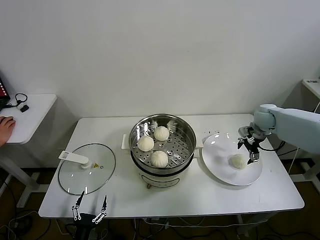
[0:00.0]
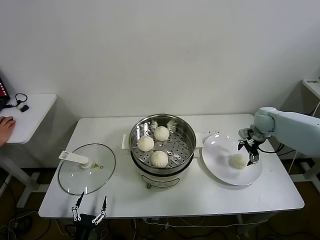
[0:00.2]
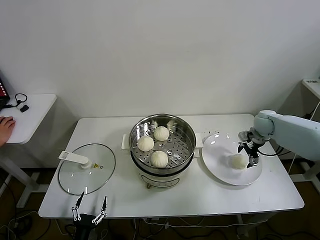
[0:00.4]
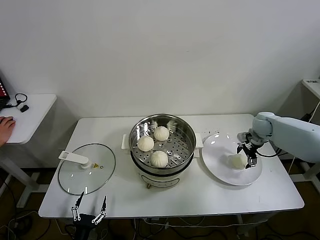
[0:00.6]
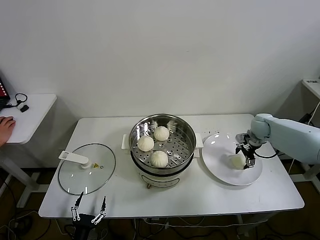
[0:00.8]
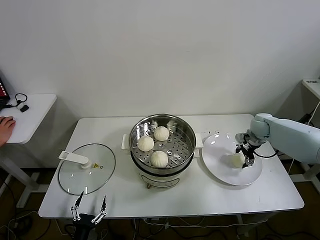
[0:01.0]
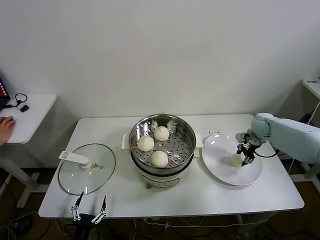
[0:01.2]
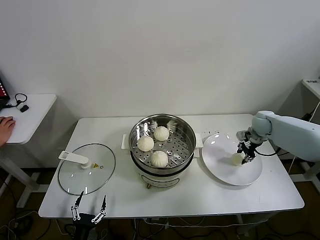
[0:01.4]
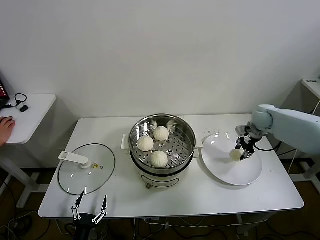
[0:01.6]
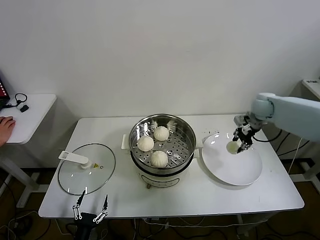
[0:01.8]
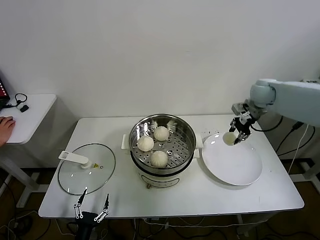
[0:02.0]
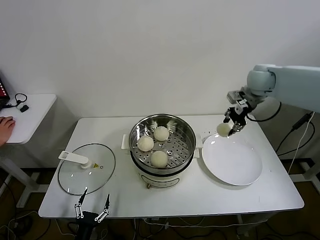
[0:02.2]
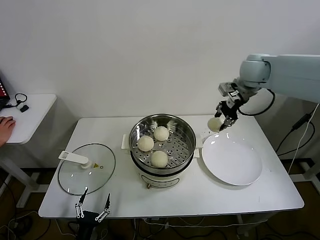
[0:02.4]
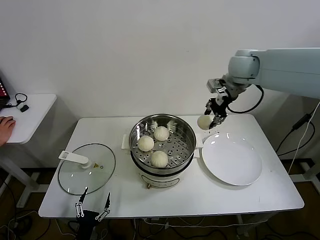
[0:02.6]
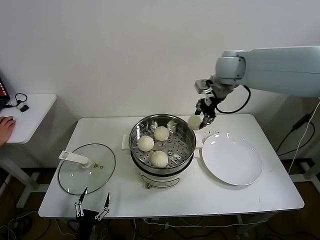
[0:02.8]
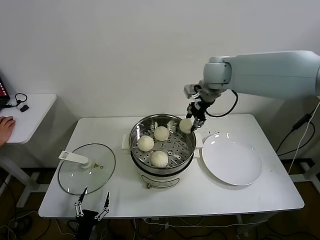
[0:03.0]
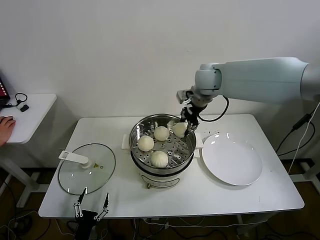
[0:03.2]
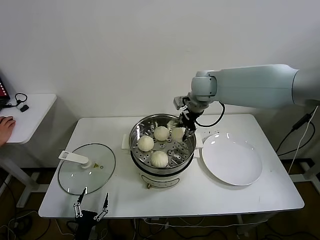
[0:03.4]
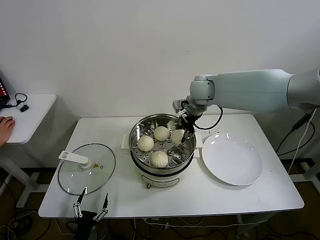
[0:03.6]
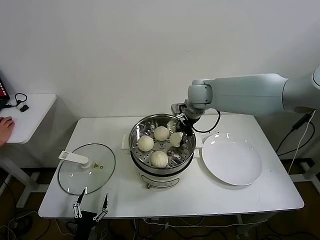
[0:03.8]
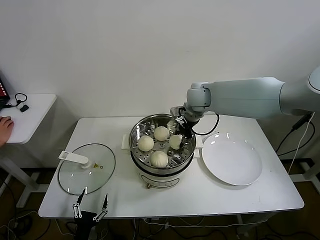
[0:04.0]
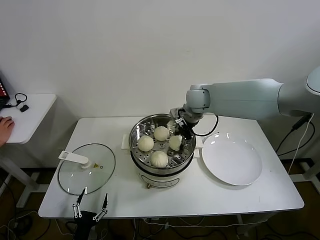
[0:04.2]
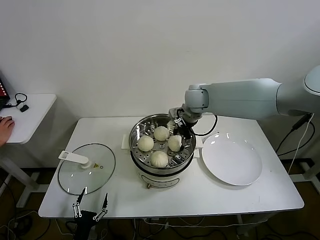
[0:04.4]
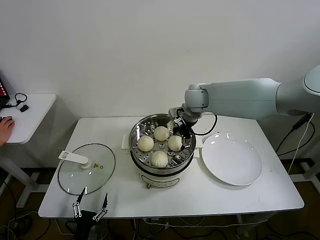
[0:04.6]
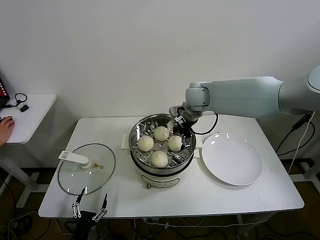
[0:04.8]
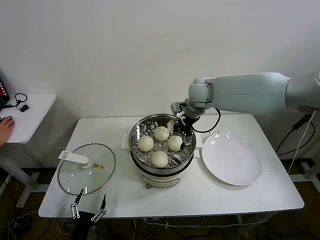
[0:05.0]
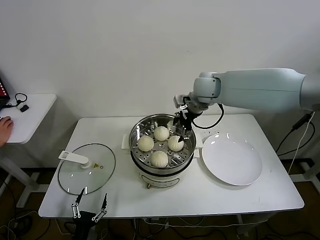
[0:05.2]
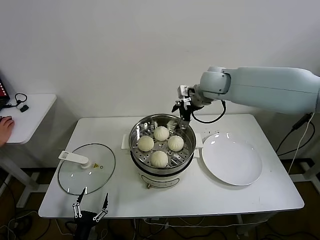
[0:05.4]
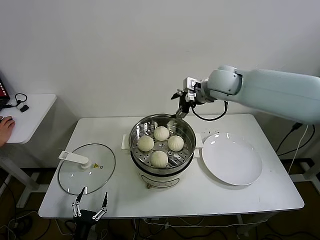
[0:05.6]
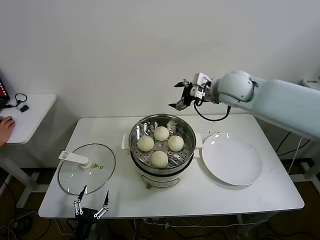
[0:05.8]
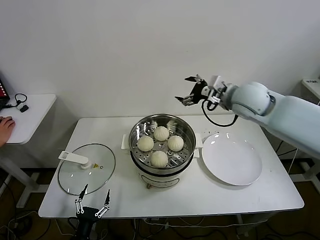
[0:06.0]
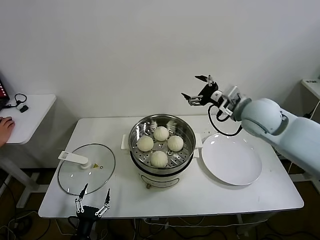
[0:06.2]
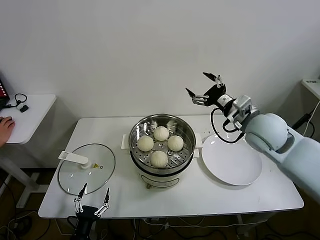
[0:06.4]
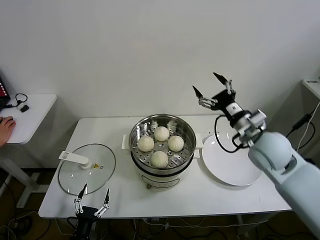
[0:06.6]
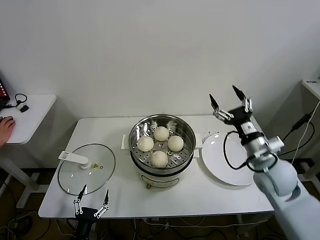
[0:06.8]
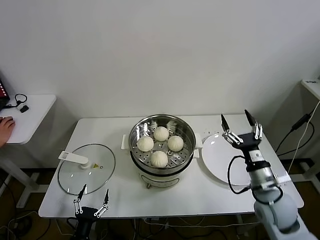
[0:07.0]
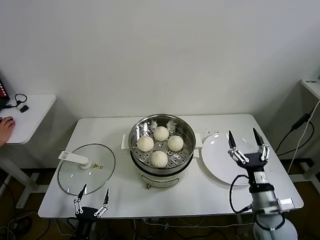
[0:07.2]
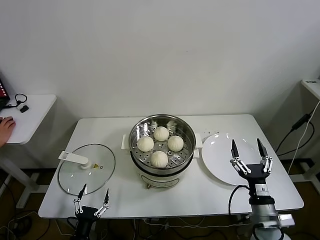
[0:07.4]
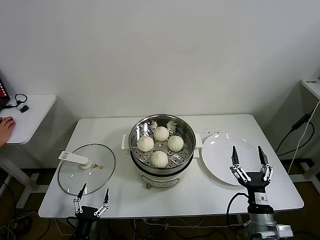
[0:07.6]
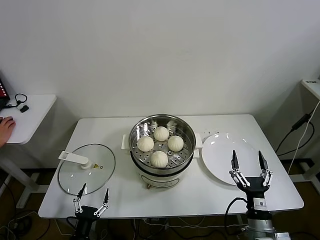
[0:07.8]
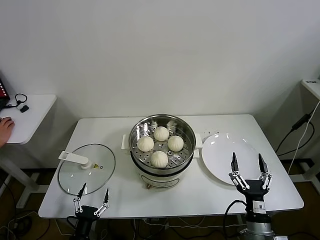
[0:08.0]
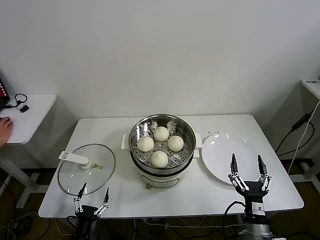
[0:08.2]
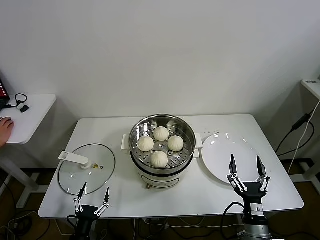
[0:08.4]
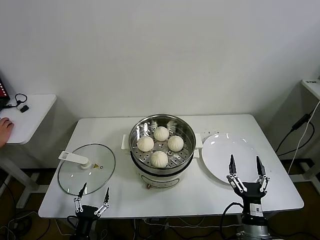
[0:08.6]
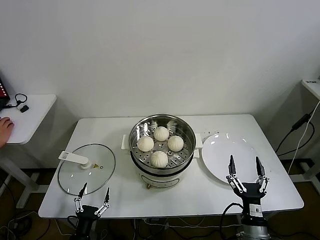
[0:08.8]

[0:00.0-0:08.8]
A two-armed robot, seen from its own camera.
Task of the whole recording: take steamed baozi put them in steamer.
Step, 1.4 to 4.6 s: Place the baozi on the steamer with right gripper.
0.0 to 1.4 s: The right gripper closes its fingers.
1.4 to 3.0 s: The right gripper heads upward and to the left, covering some 35 cm.
3.0 to 4.4 s: The right gripper heads downward and to the left, covering roughly 10 cm, and opens its fingers.
4.4 to 5.8 s: The right gripper heads to the right and upward, covering about 10 cm.
5.8 to 7.4 s: The right gripper moves backward and downward, approximately 40 cm.
7.4 to 8.8 s: The right gripper is displaced backward by roughly 5 cm.

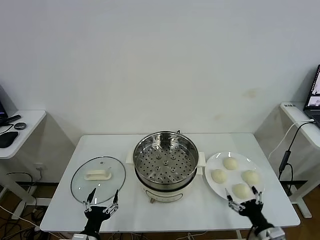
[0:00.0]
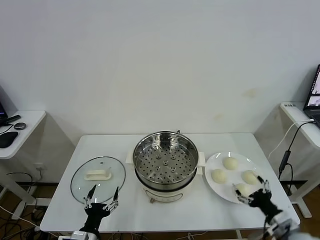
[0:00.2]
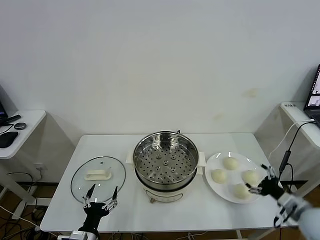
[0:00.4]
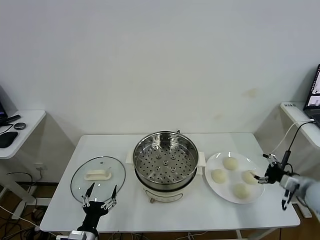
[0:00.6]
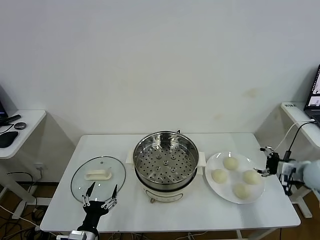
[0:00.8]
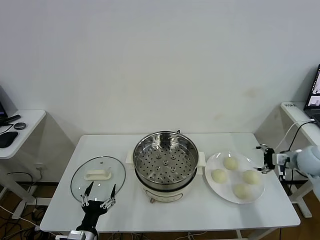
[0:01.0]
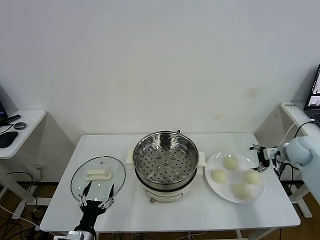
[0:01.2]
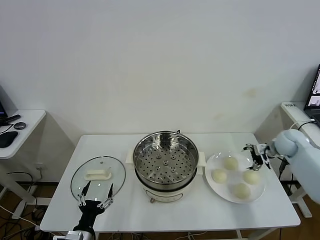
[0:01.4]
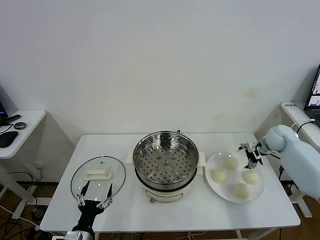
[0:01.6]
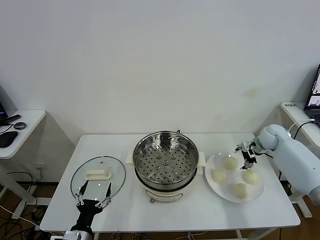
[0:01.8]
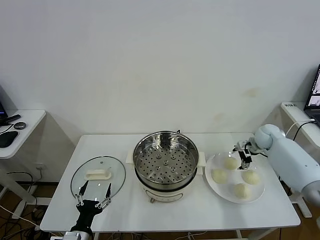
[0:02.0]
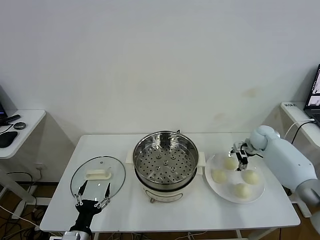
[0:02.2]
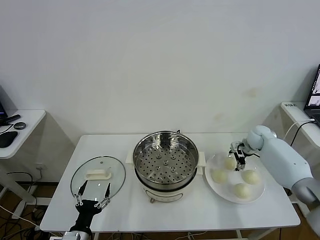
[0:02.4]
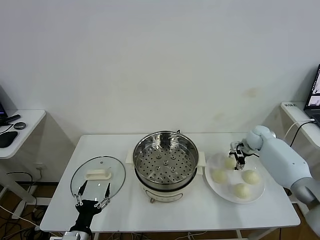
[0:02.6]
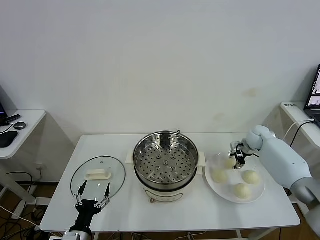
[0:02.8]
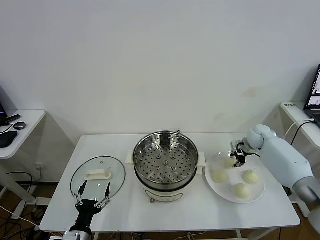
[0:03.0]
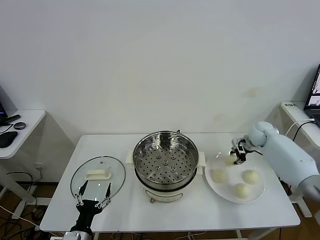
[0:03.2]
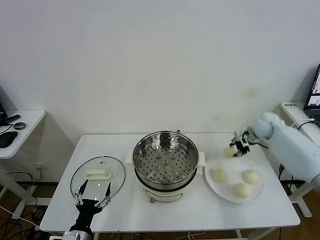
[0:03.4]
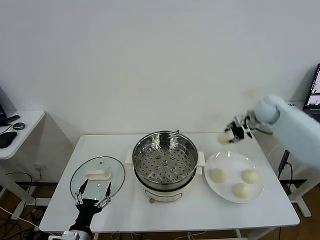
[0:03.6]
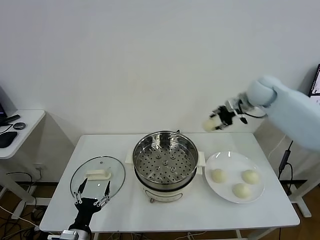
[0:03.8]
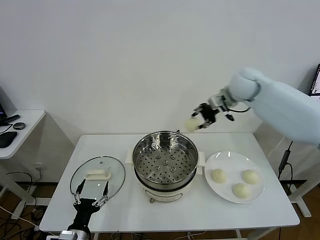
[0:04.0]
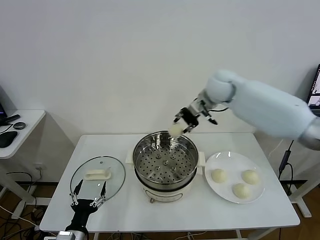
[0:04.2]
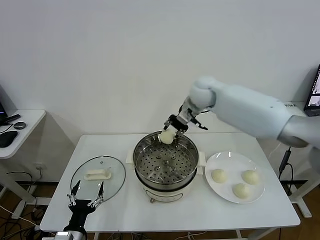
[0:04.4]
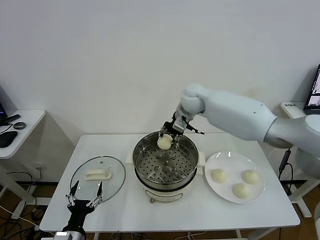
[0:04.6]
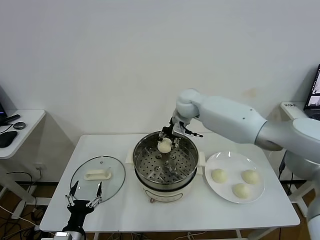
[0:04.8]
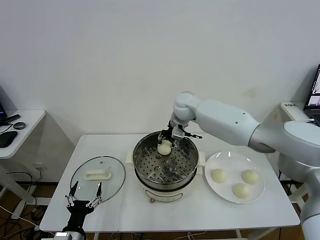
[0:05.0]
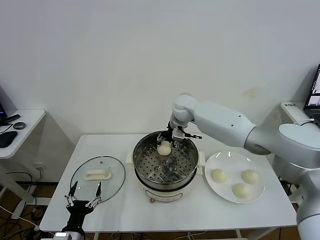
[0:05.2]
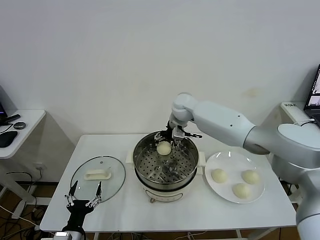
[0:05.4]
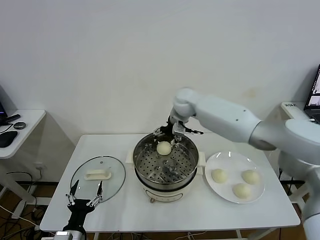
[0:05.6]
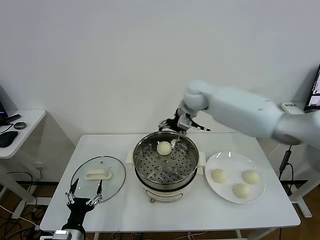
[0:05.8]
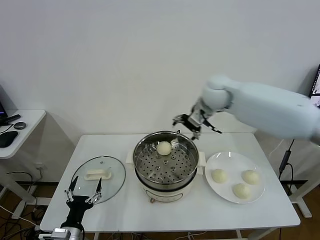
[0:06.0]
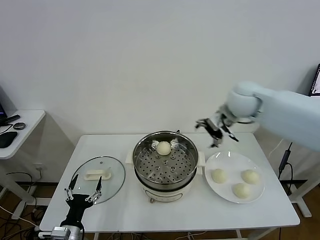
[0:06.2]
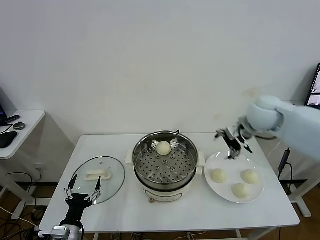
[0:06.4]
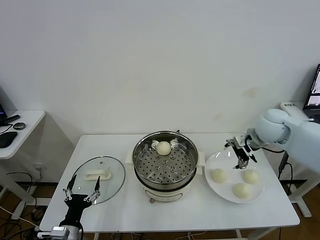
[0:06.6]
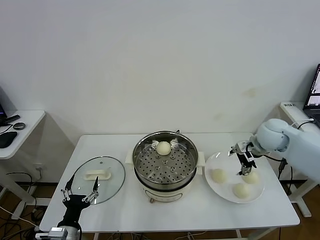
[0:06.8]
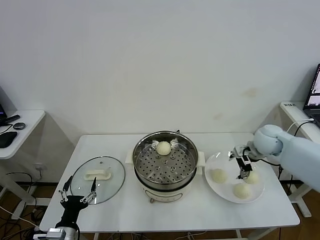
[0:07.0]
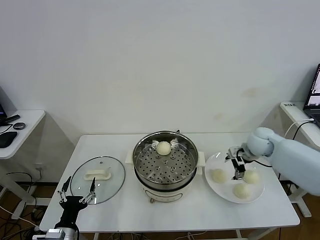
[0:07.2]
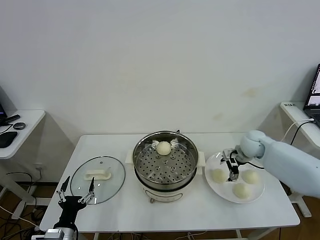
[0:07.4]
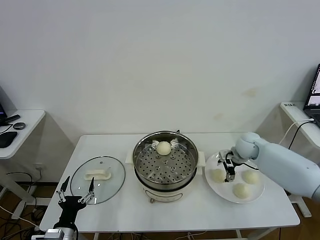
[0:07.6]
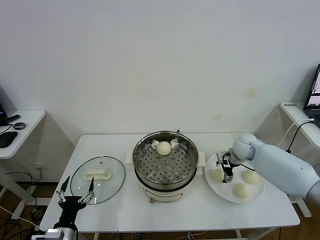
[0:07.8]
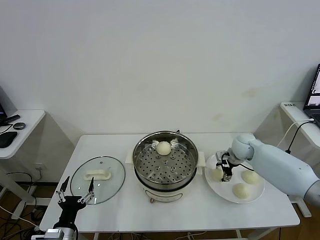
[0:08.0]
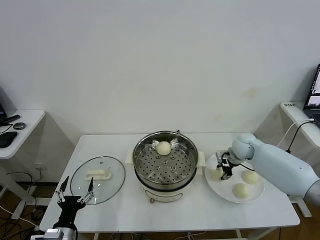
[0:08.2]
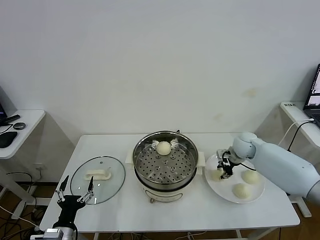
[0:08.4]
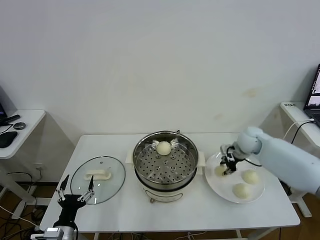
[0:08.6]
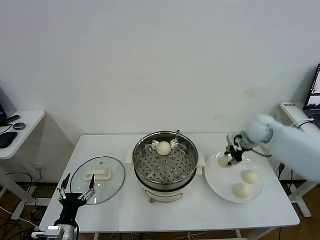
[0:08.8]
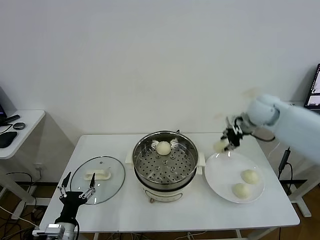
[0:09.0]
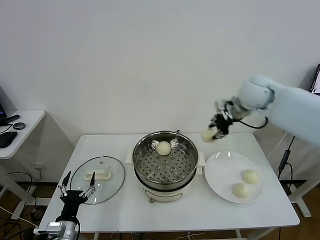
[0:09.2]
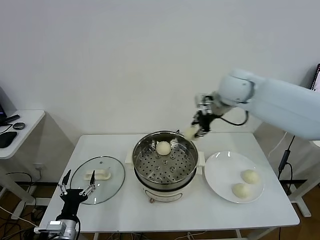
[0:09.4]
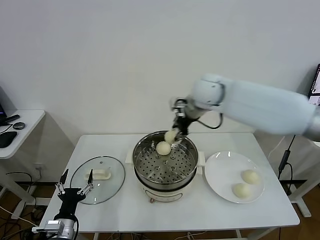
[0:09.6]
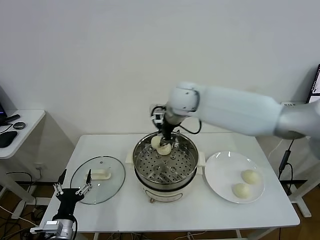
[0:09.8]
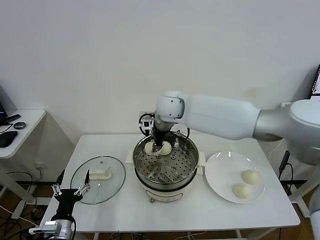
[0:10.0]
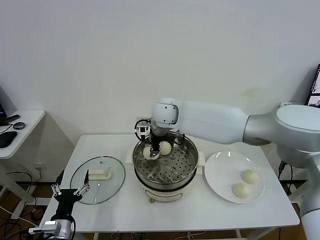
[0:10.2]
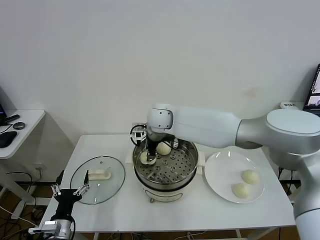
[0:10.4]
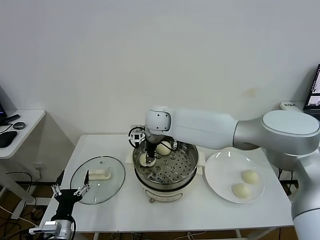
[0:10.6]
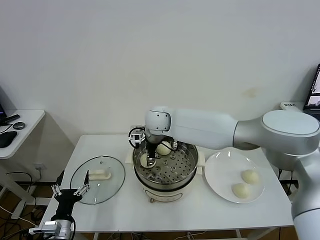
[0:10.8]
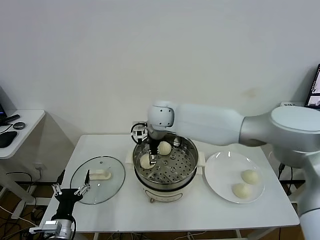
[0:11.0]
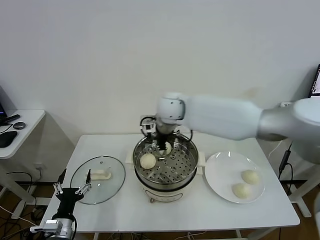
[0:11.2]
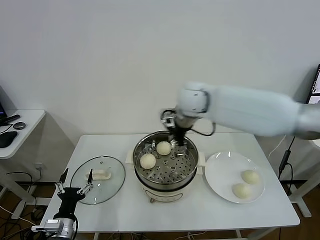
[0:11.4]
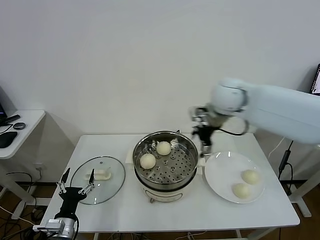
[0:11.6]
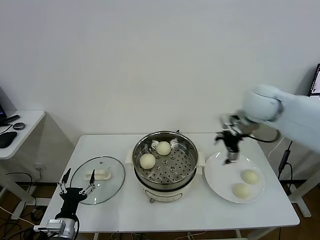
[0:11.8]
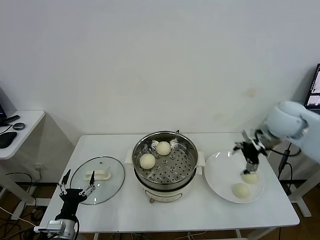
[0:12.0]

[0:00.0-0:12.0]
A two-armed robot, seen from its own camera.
Task of the whole recording: take steamed baozi put them in steamer.
Step, 0.0 to 2.8 s: Grasp the baozi in the plate with right gripper.
Step, 3.0 to 5.4 s: Place the baozi on the steamer with right gripper.
Step, 5.6 to 8.2 s: Grasp the baozi in the plate with right gripper.
Step, 8.4 to 11.0 s: Place the baozi on the steamer with right gripper.
1.6 to 3.0 s: The right gripper moves approximately 5 cm, and closes its fingers.
3.0 to 4.4 s: The right gripper heads to the left and upward, covering roughly 35 cm.
4.4 to 6.0 s: The right gripper reaches about 5 cm downward, then returns, and opens up.
6.0 to 7.6 s: The right gripper heads downward and to the right, covering approximately 25 cm.
7.6 to 9.0 s: The right gripper heads upward, covering approximately 15 cm, and closes up.
9.0 to 10.4 s: The right gripper heads to the left, covering roughly 30 cm.
10.4 to 12.0 s: The right gripper is displaced to the right by approximately 35 cm, and opens up.

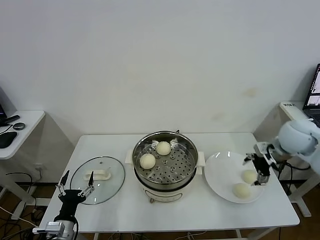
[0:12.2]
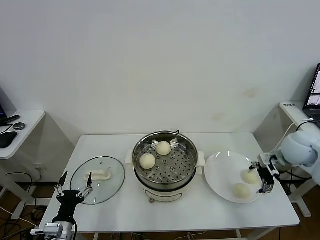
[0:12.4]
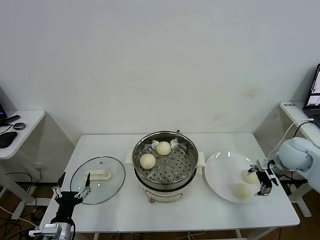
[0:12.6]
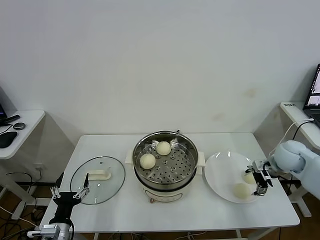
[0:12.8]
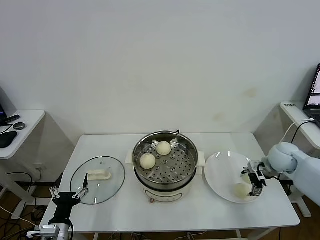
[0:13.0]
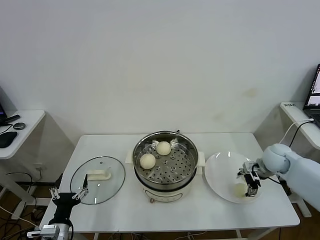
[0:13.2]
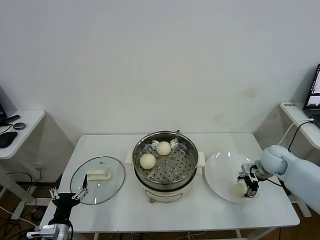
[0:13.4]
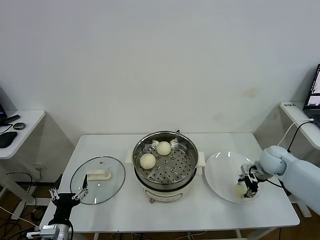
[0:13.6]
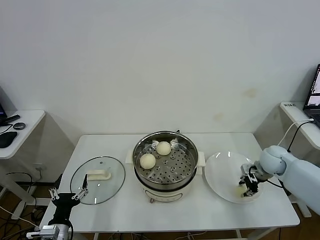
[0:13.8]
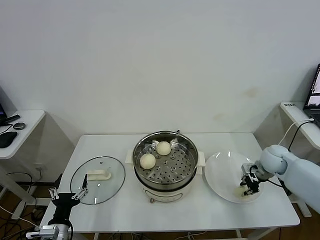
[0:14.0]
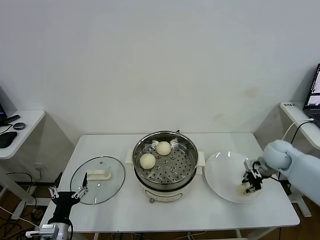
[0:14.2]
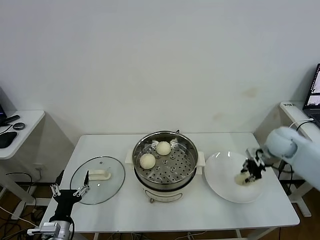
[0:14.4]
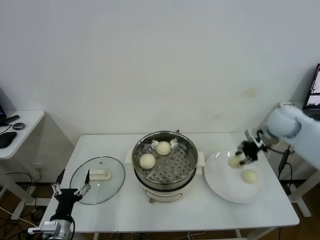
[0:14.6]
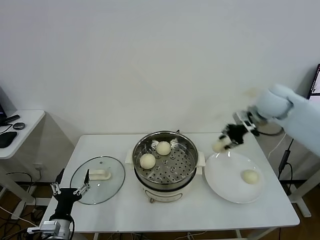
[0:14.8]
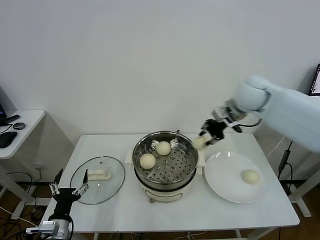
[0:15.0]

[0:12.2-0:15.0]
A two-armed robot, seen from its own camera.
Task of the whole recording: take steamed baozi put them in steamer.
Step, 12.2 to 13.4 s: Grasp the baozi in the plate with right gripper.
12.2 to 13.6 s: The right gripper travels downward by approximately 15 cm, and closes its fingers.
13.6 to 15.0 s: The right gripper is displaced upward and to the left by roughly 30 cm, and closes up.
